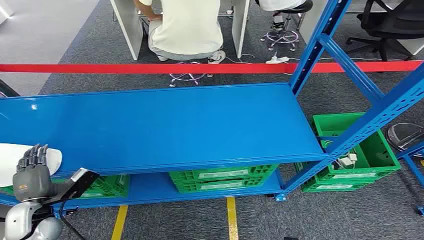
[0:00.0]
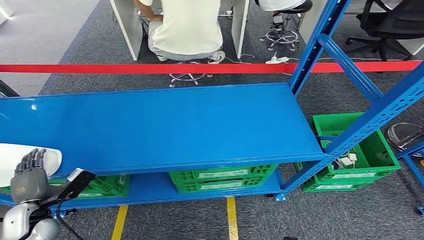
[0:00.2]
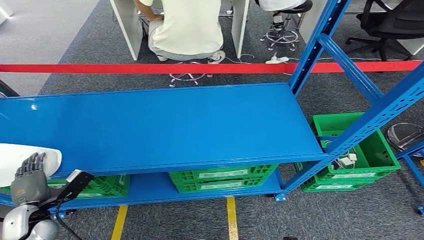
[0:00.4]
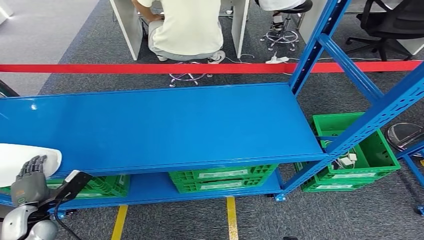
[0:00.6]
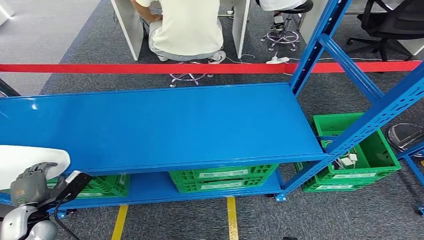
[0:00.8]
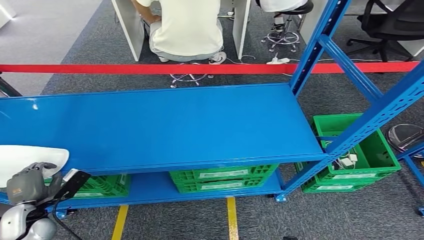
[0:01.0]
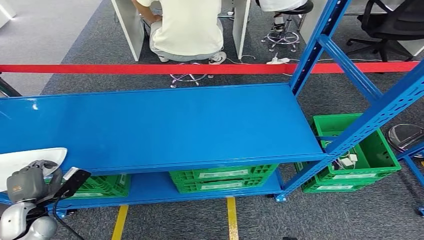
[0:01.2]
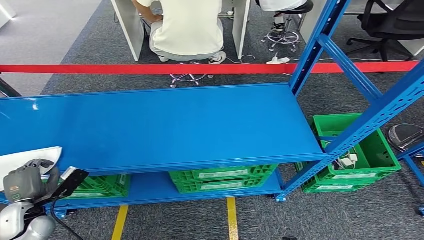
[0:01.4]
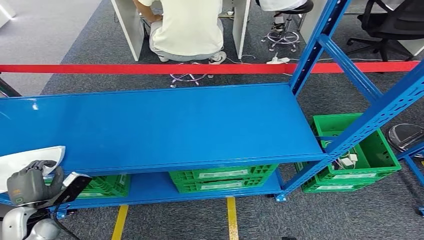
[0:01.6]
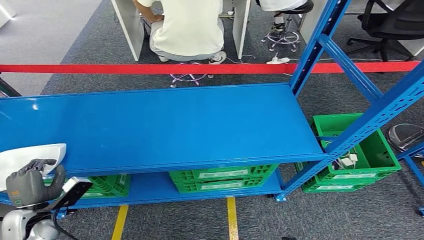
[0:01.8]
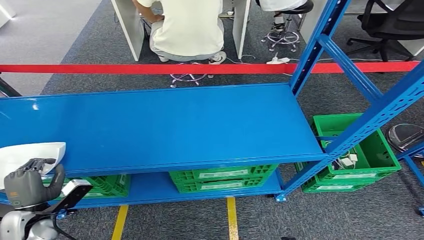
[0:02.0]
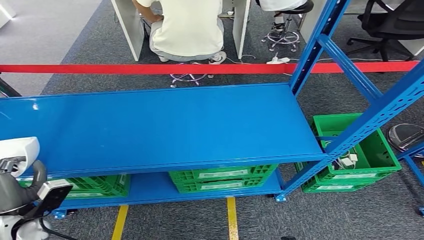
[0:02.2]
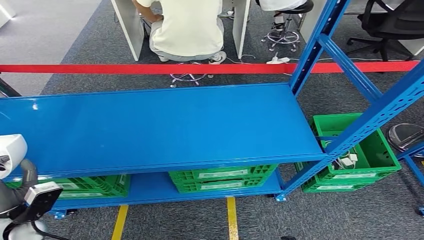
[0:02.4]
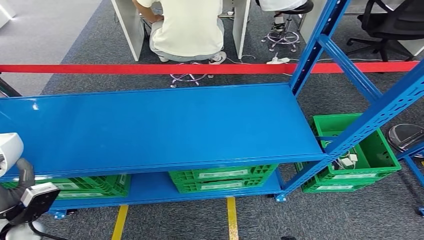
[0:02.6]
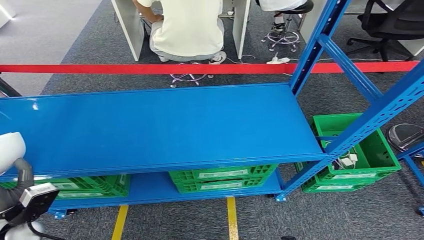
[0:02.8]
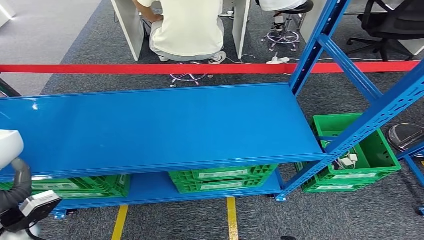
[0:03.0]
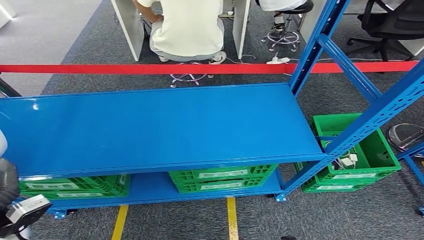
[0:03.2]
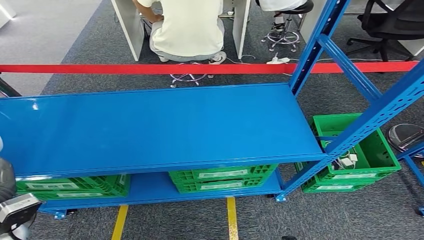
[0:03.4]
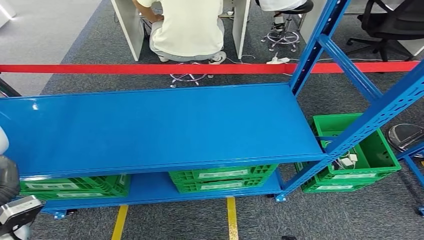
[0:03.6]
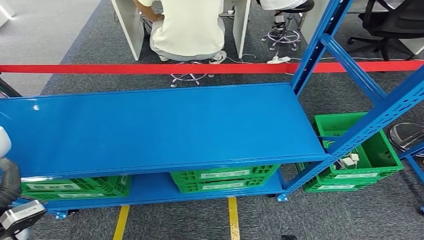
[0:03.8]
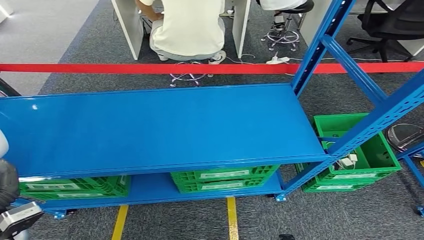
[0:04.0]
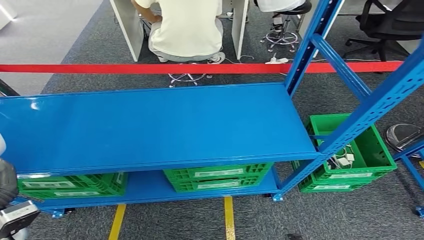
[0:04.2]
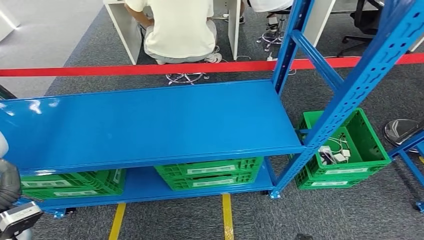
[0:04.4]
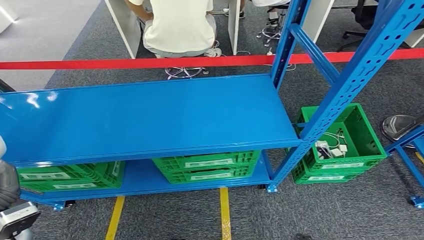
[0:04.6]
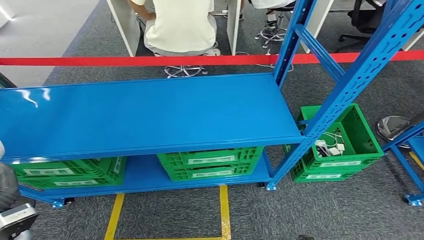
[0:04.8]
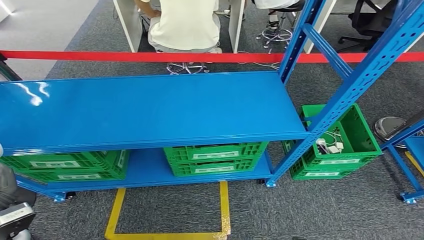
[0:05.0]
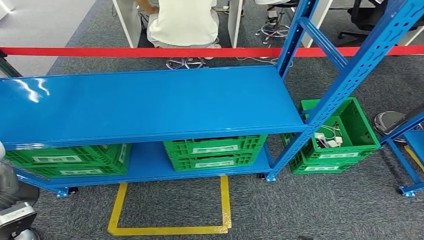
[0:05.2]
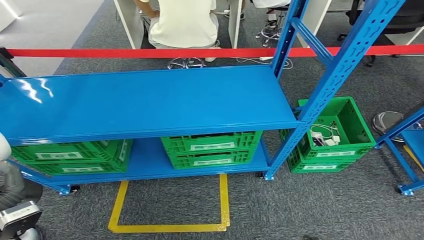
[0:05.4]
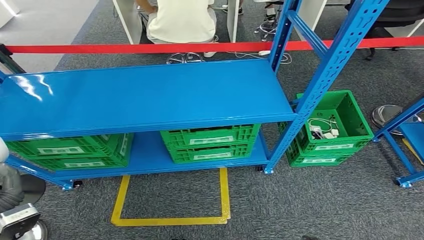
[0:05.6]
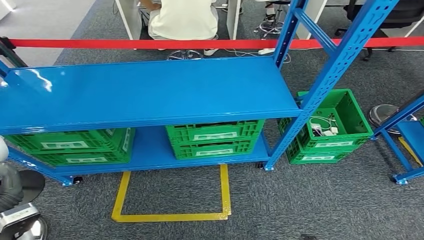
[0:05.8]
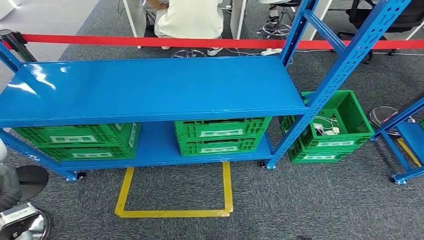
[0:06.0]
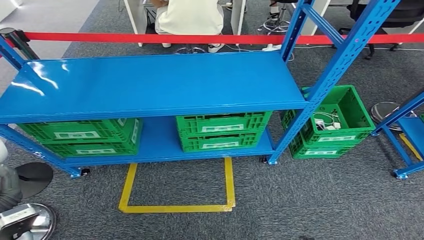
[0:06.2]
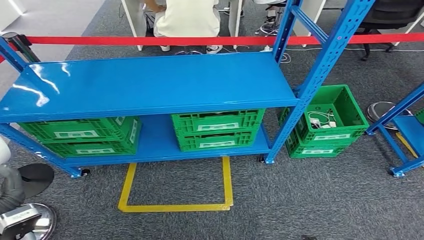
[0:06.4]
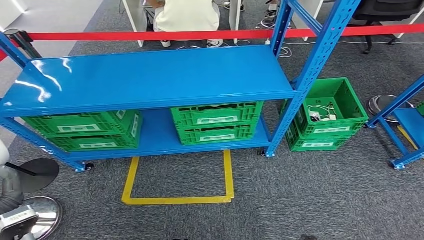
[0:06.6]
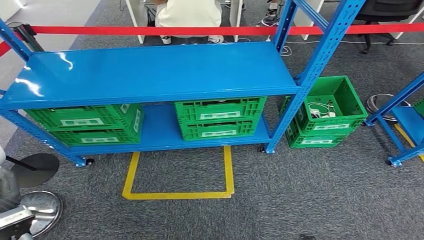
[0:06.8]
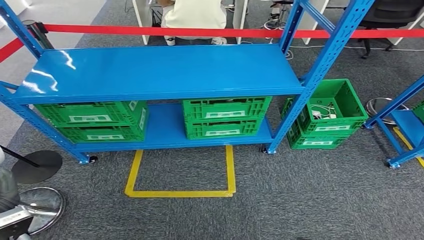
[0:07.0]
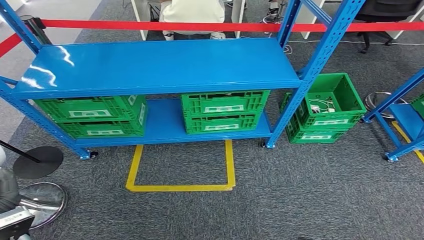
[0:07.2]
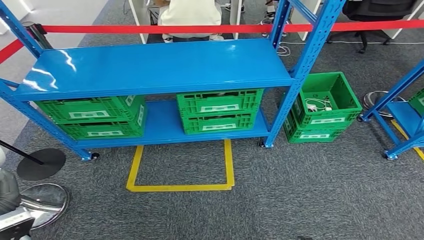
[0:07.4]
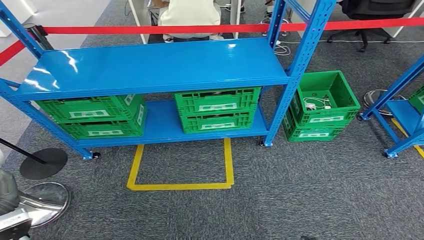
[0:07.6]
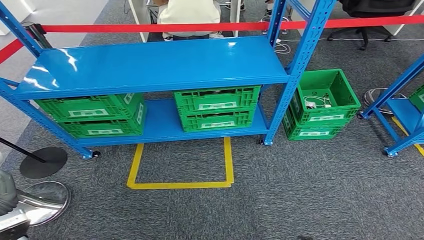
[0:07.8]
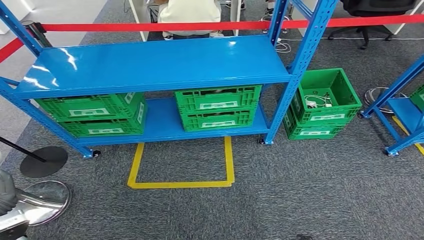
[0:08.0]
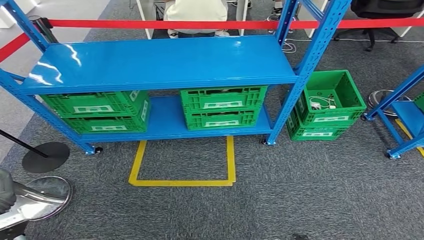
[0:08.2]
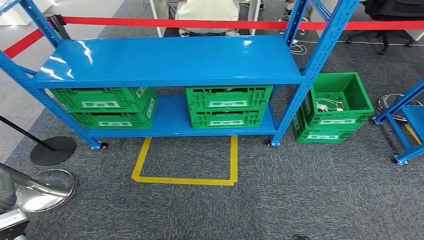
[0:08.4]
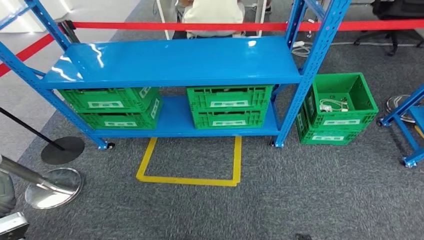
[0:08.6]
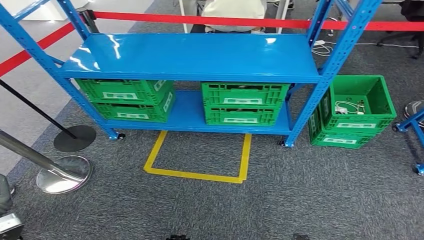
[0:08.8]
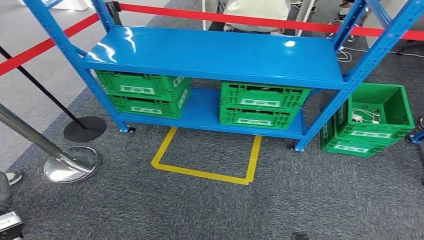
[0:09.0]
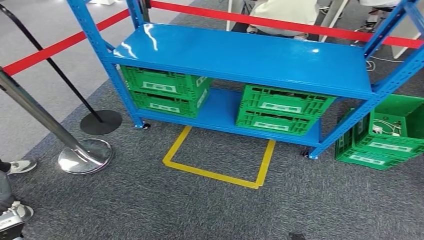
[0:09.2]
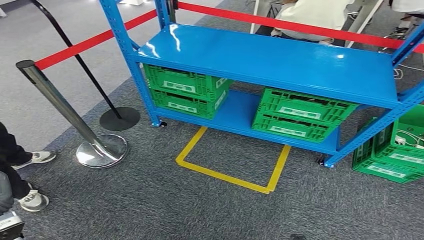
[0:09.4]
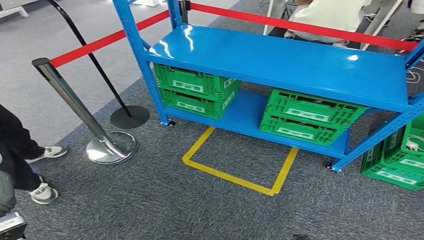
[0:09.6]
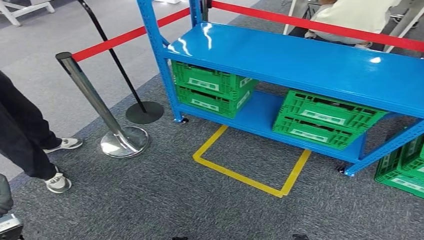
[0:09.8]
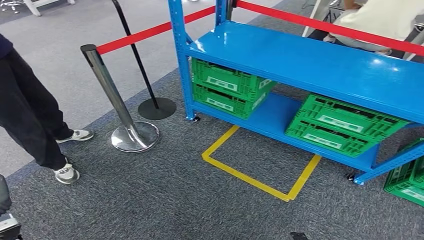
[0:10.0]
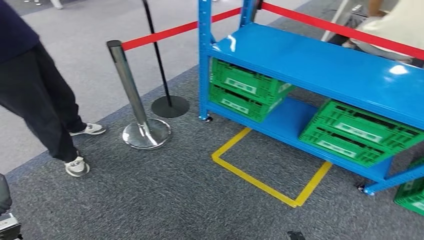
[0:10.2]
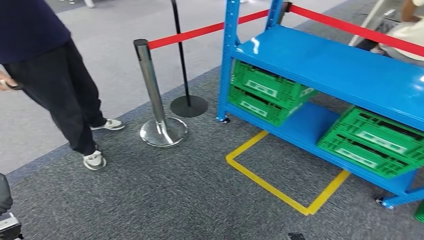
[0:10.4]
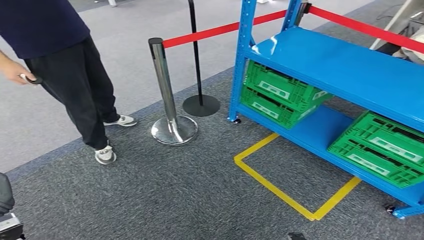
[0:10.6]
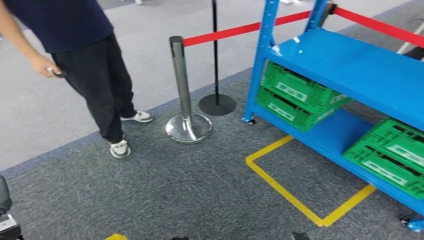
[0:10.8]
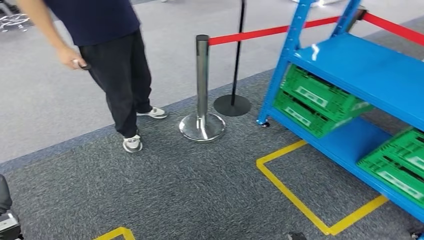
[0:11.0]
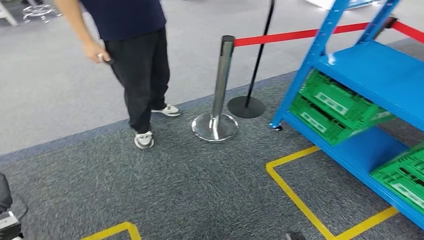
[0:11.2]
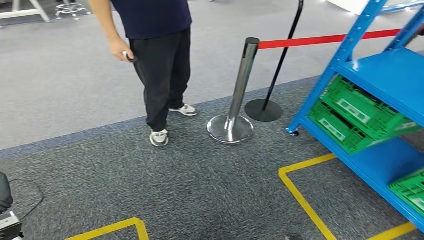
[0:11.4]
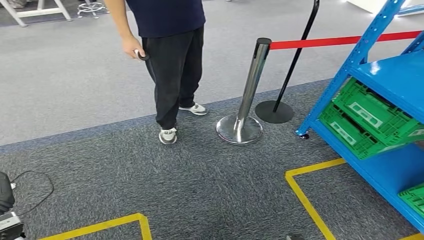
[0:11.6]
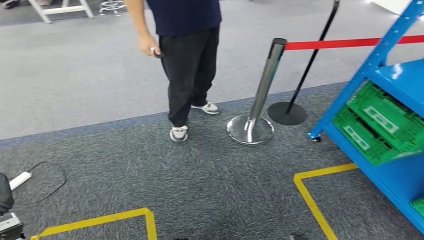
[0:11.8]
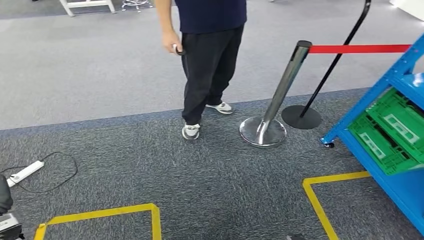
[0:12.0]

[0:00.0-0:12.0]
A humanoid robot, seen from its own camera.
Step, 0:00.0 to 0:08.0: Pick up the small component from the shelf.
0:01.6 to 0:03.0: The left hand travels upward by some 10 cm.

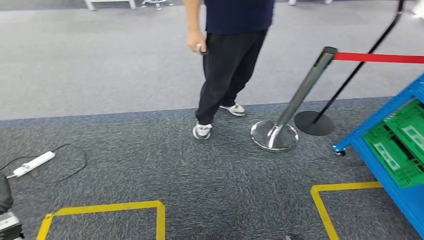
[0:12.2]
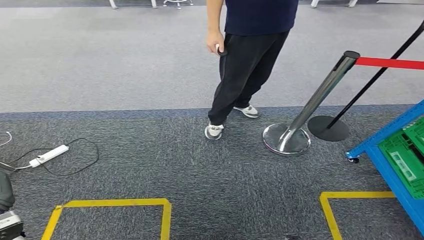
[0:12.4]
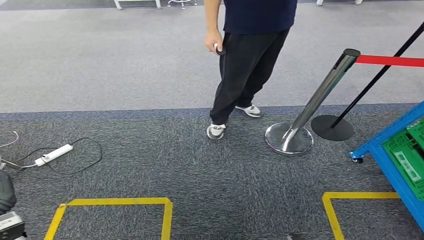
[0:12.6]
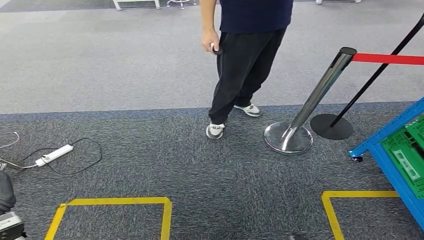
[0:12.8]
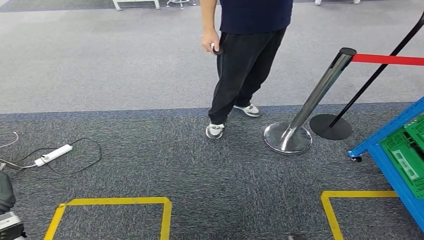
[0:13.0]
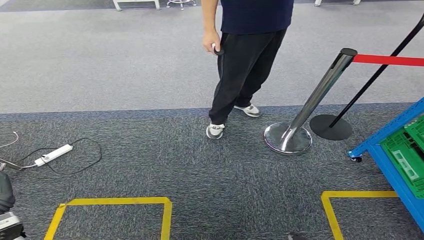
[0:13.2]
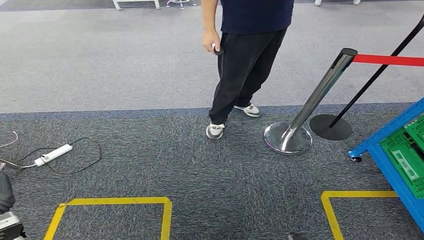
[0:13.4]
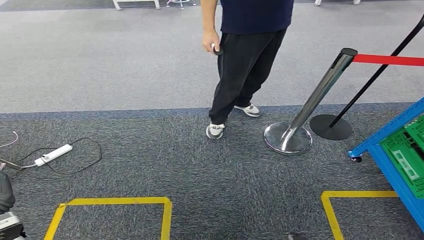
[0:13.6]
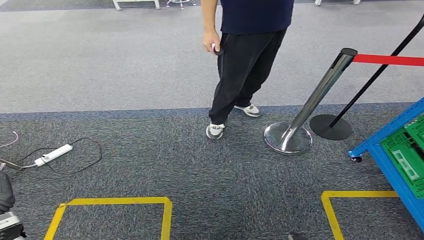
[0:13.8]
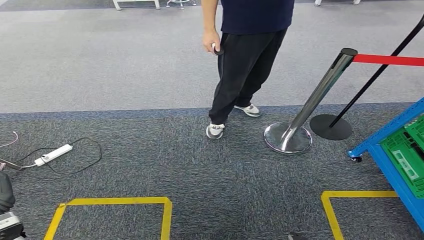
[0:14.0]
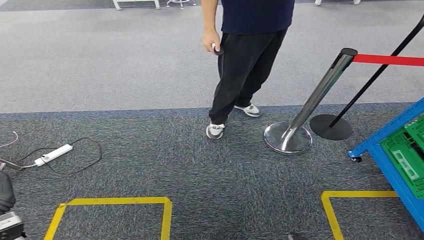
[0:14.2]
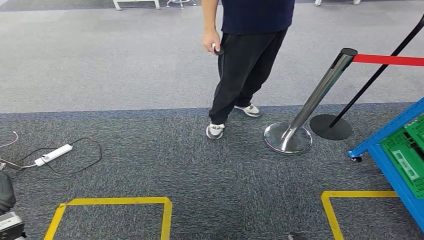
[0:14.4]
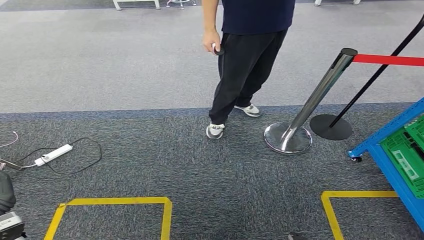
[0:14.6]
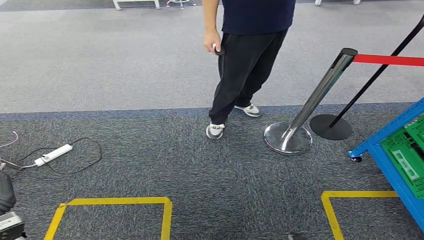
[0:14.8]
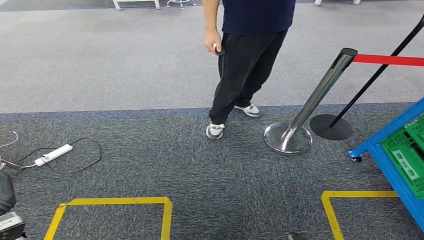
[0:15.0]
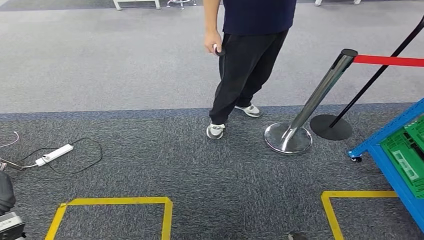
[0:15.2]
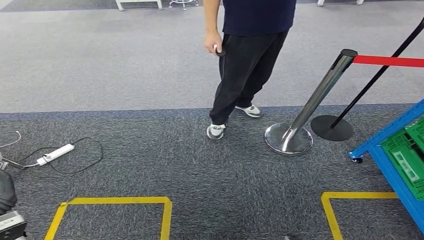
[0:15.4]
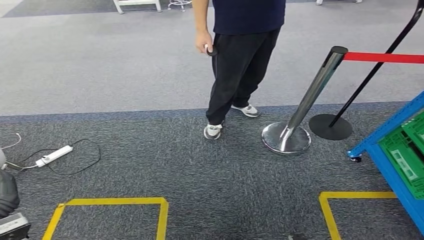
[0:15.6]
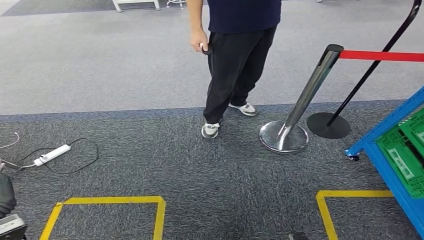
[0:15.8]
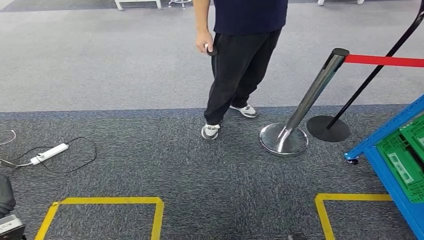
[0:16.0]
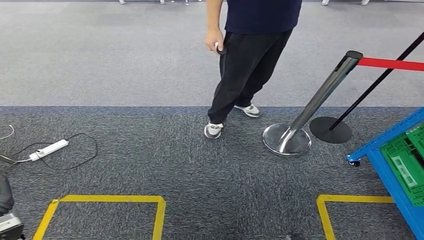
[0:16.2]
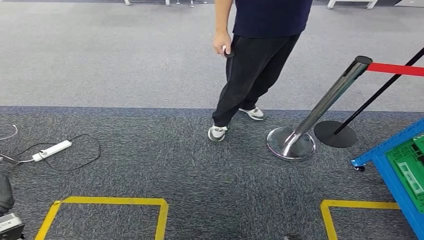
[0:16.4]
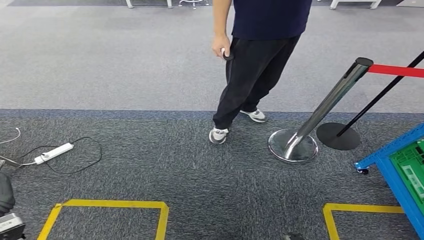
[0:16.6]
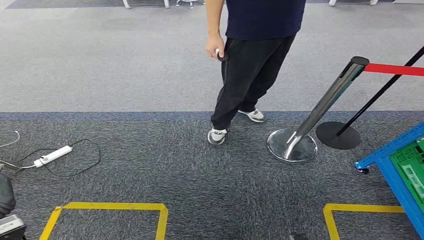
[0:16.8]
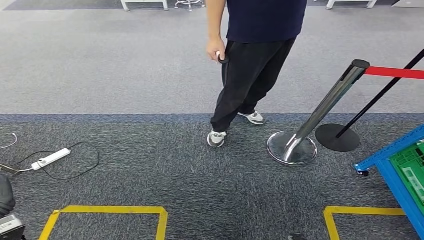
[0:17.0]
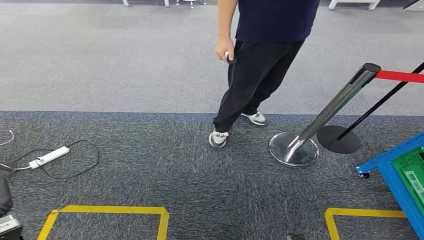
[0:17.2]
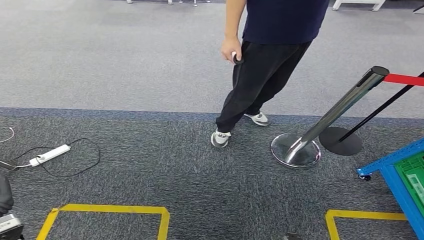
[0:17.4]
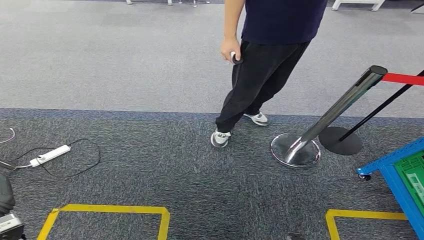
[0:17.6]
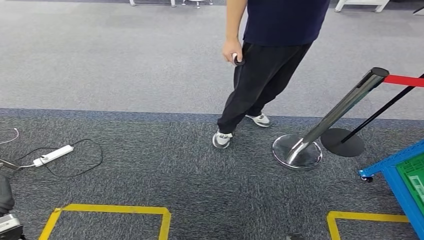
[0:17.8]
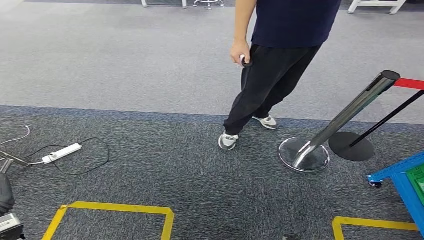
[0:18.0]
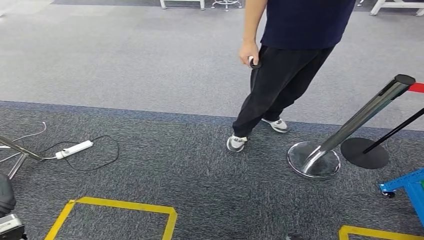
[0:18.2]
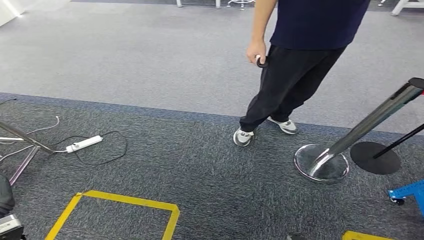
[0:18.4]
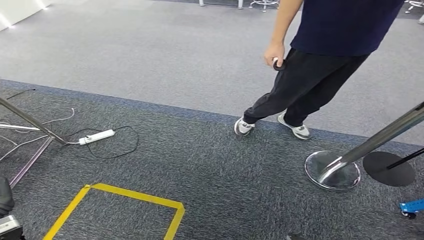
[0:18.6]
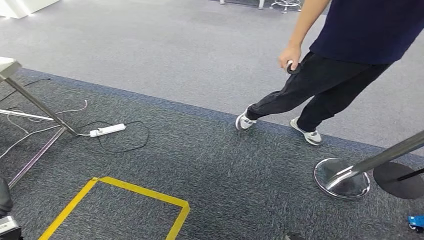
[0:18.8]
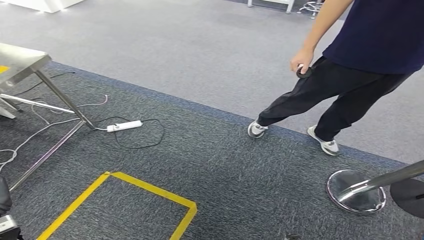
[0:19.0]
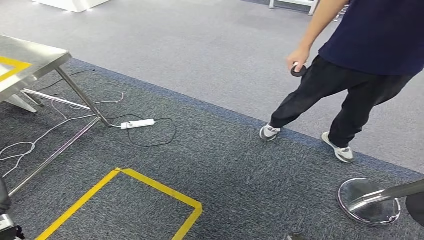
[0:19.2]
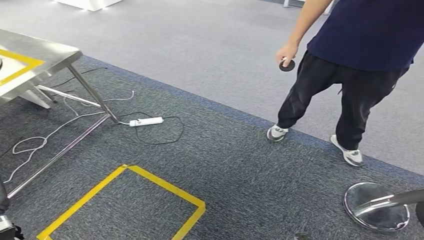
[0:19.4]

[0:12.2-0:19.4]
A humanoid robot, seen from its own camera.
0:13.6 to 0:16.6: The two hands keep their place.
